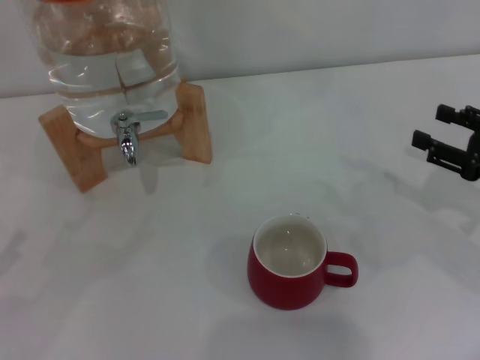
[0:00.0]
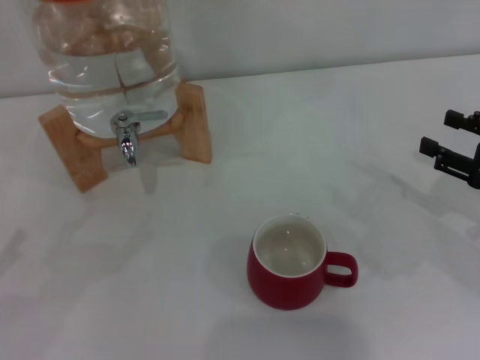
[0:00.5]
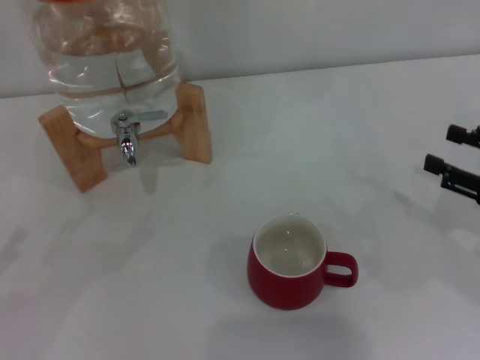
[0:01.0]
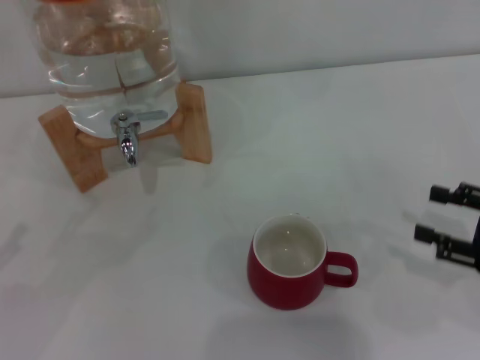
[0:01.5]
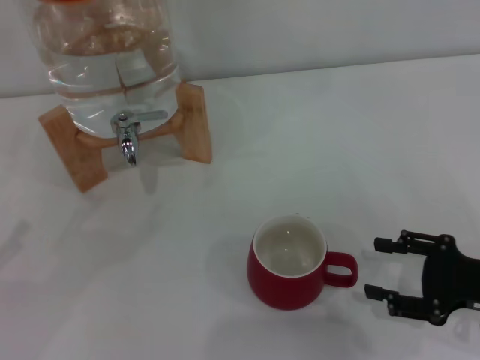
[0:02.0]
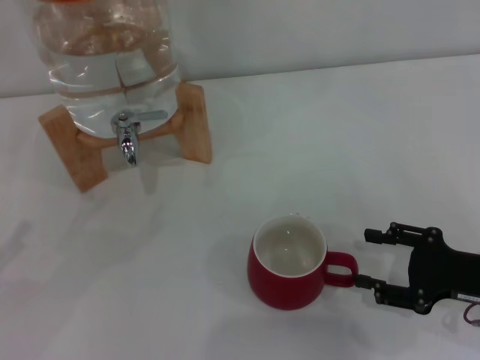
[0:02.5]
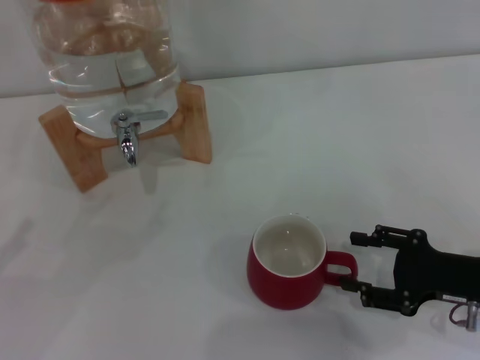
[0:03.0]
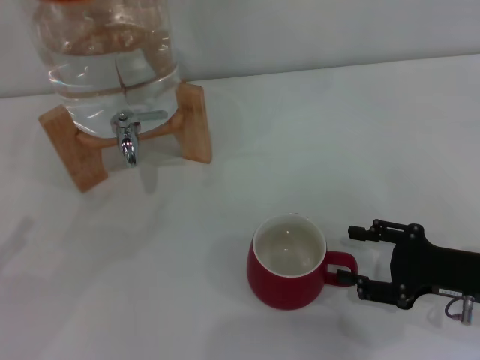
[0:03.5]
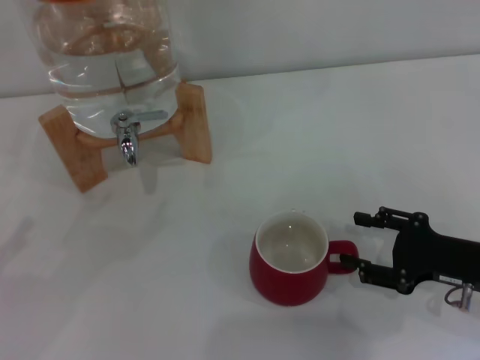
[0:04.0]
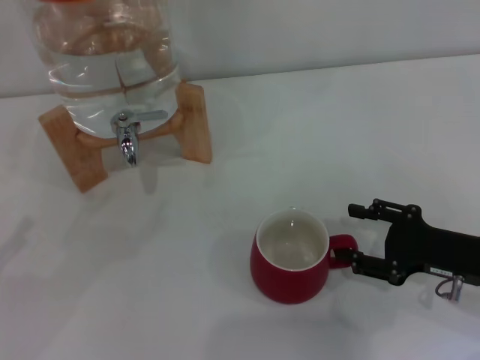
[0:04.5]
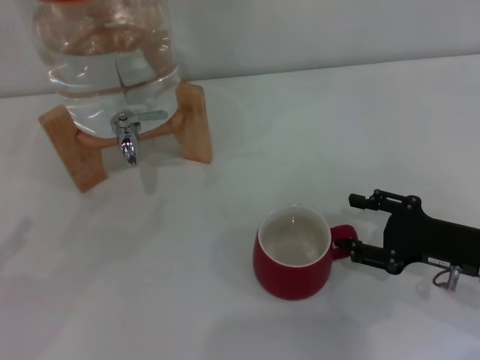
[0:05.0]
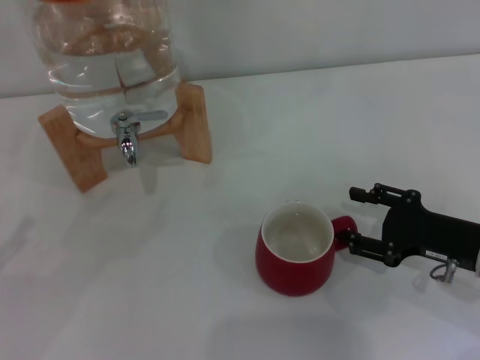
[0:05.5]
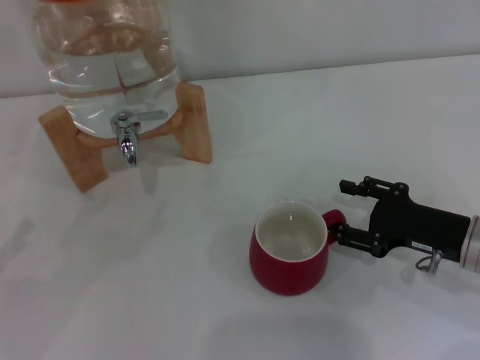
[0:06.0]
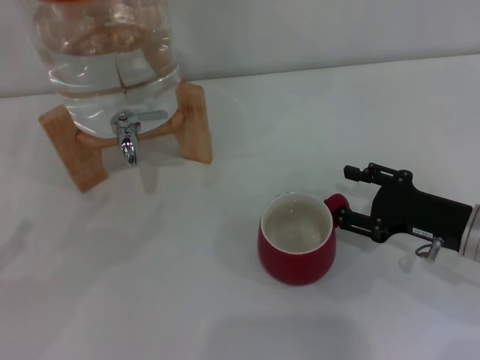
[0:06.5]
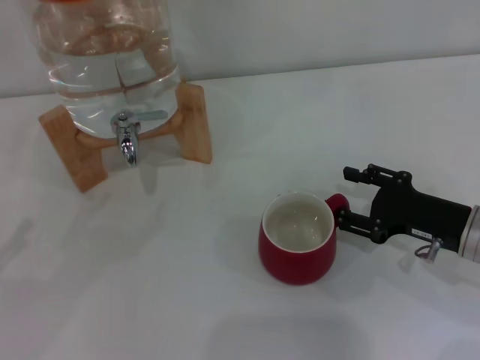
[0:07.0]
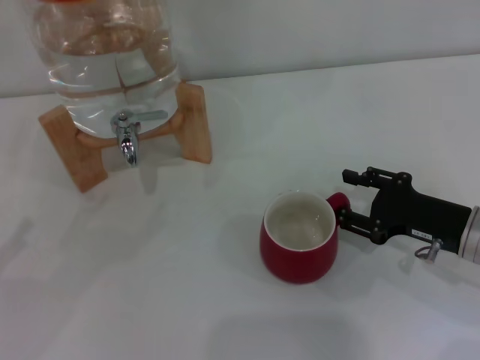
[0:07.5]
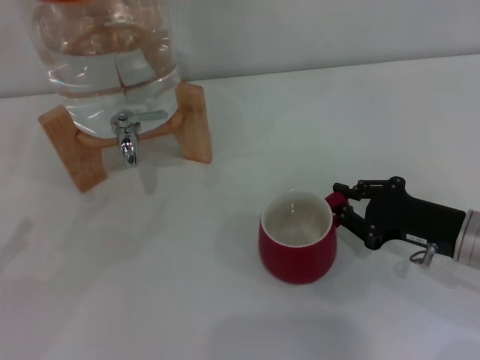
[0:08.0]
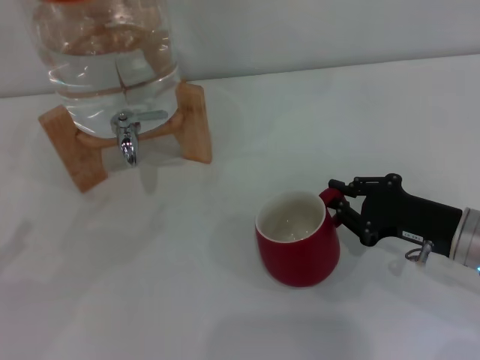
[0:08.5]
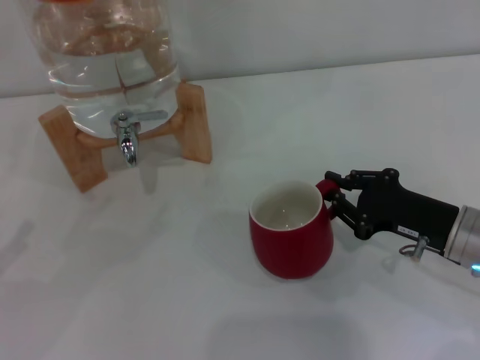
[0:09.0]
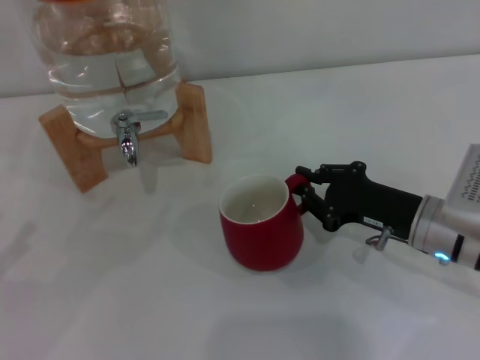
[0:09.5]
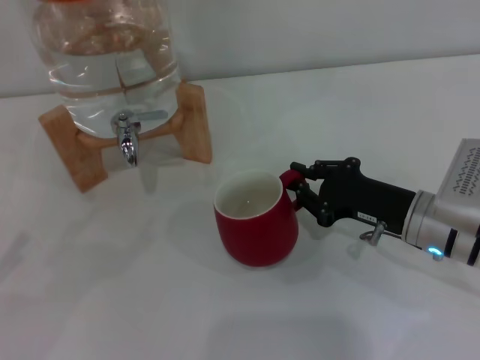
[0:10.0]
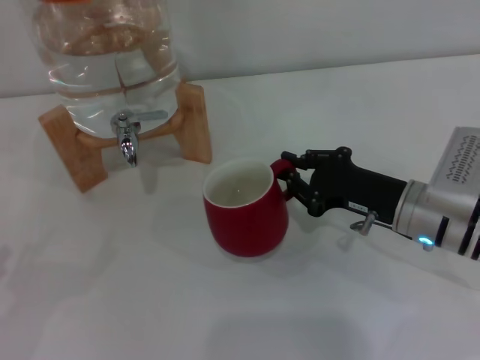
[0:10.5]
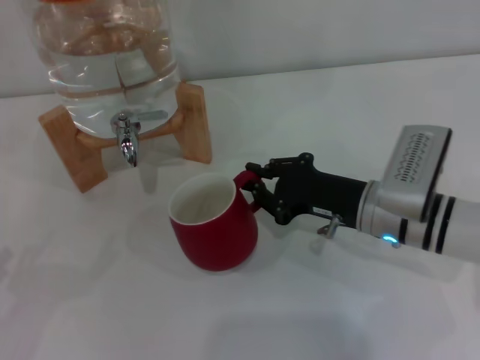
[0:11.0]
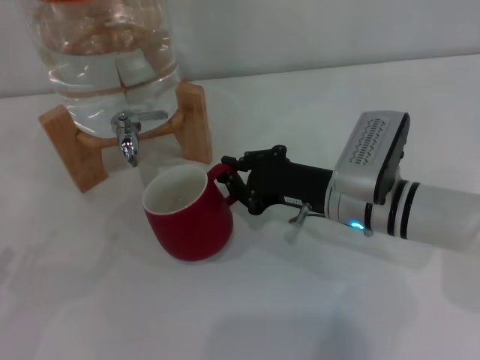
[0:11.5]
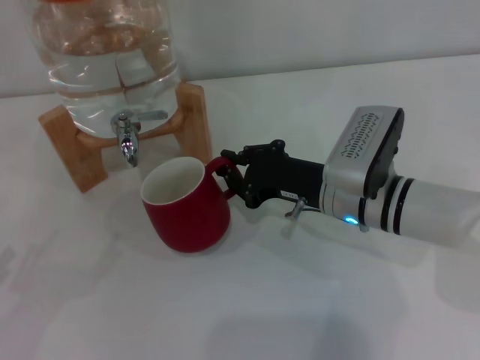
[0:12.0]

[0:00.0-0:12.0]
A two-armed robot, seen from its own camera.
Task of the whole recording: the right gripper pick up the red cup and place it horizontally under the faucet, the left gripper turn on the faucet to fill the cup, and then turn off the faucet.
0:00.0 to 0:02.0: The right gripper shifts roughly 5 cm backward.
0:02.0 to 0:04.0: The grippers move only a little.
0:04.0 to 0:06.0: The grippers move only a little.
0:06.0 to 0:08.0: The right gripper closes its fingers.
0:08.0 to 0:10.0: The right gripper ends up approximately 5 cm from where it was.
0:10.0 to 0:12.0: The right gripper is displaced to the left by approximately 10 cm.

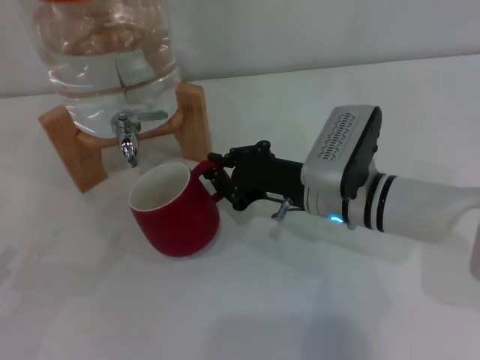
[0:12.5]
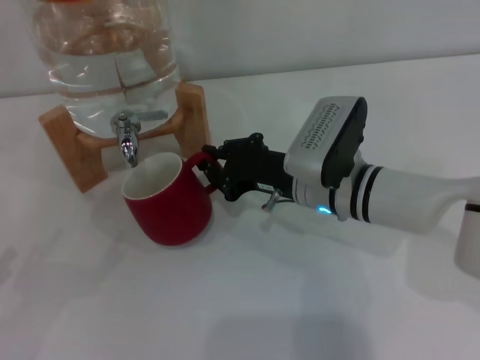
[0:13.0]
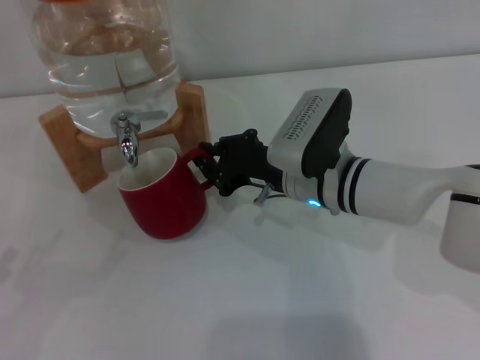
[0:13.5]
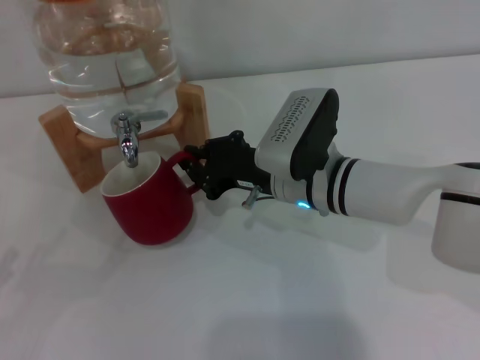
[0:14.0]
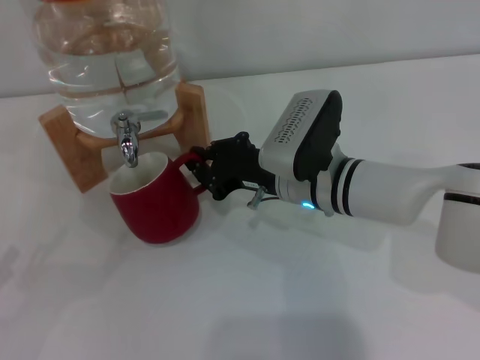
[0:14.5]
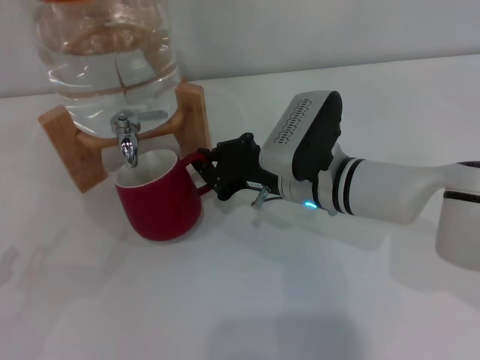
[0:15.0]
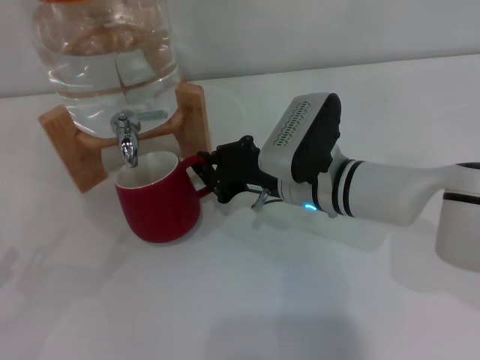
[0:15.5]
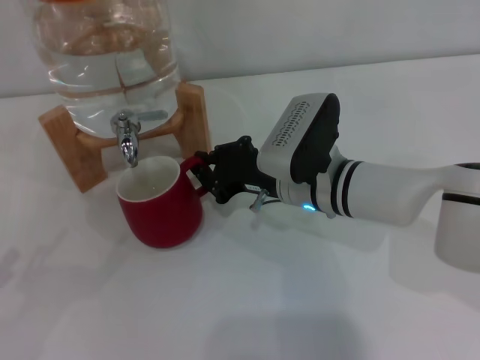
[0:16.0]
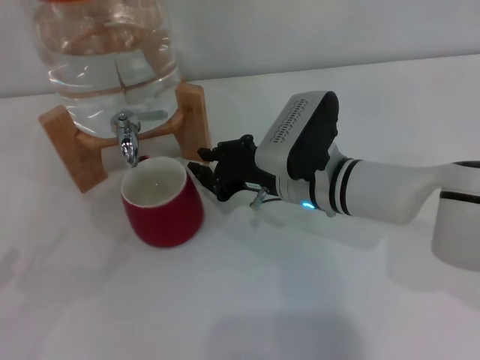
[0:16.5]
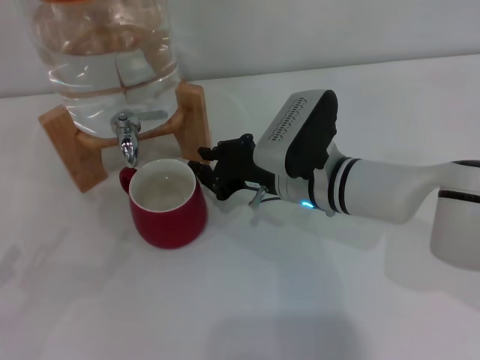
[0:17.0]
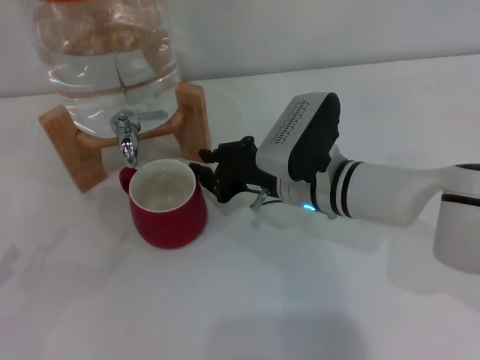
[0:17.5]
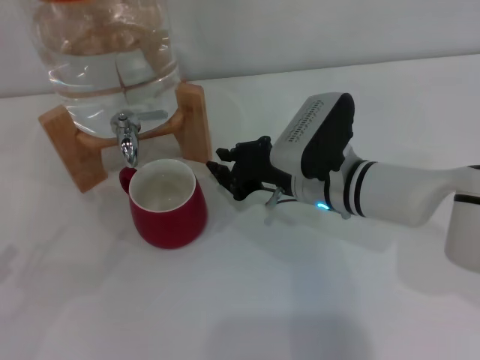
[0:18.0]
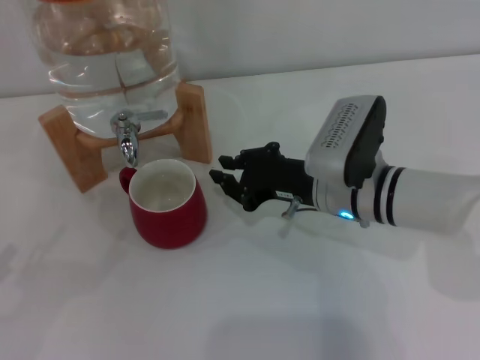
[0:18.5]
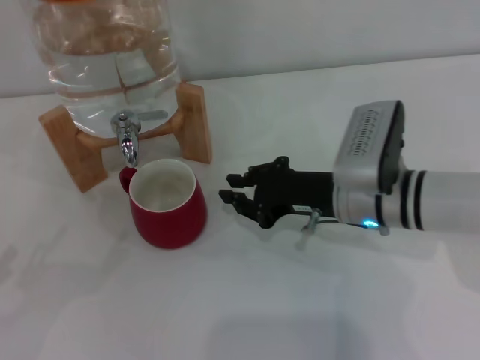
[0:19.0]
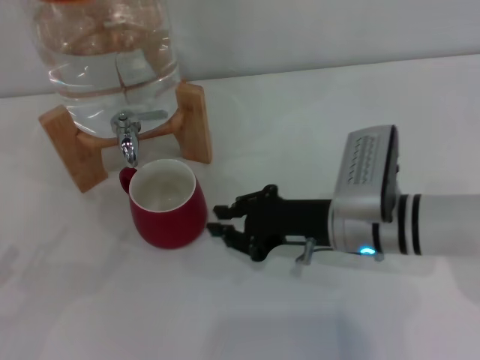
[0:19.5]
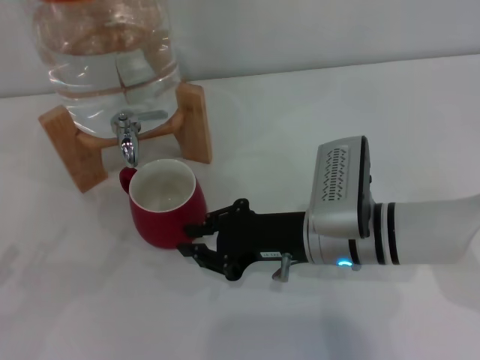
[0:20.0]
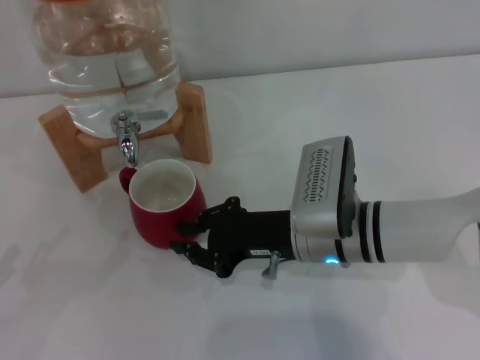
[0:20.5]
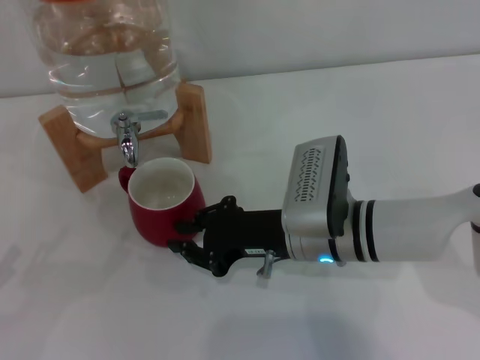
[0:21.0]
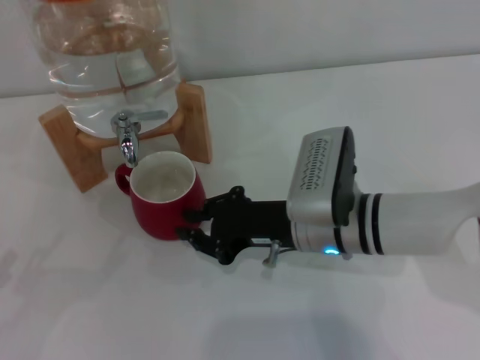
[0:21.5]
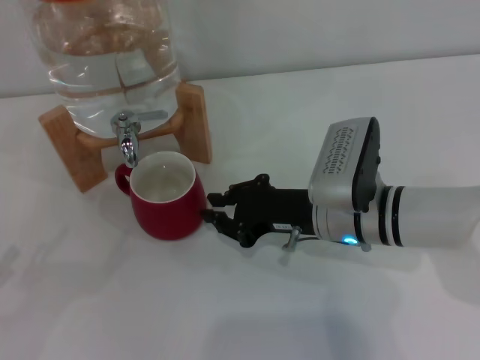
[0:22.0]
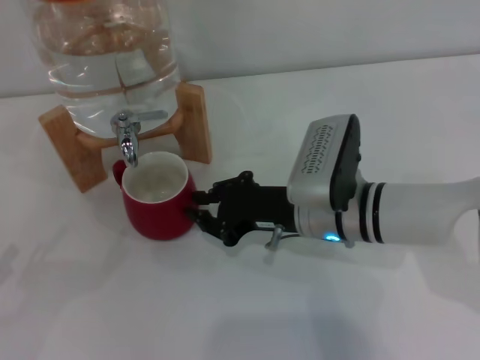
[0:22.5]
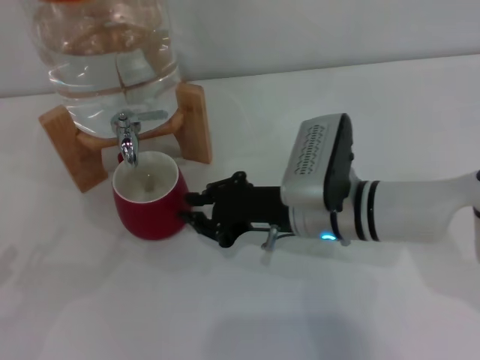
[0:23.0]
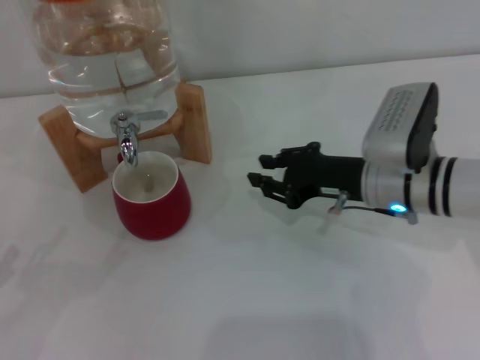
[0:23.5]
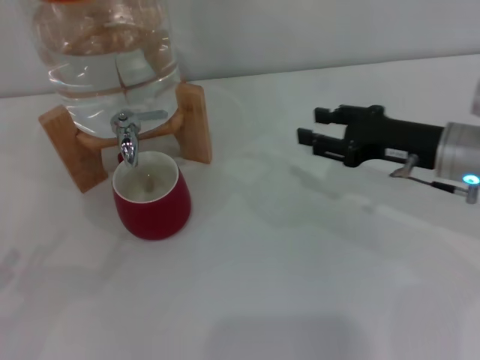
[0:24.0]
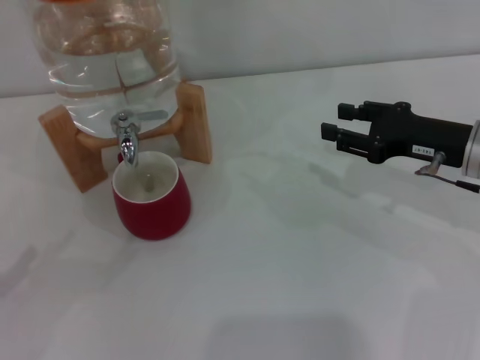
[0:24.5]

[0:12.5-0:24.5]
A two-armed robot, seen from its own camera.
Task of the whole recording: the right gripper pick up the red cup and place it horizontally under the faucet, the left gripper turn on the faucet to fill the cup, and then turn off the faucet.
Step, 0:12.5 to 0:23.0: Move the cup beneath the water dispenser nozzle with the right gripper.
0:12.5 to 0:14.5: There are only small adjustments of the grippers.
0:14.5 to 0:16.5: The two grippers keep their place.
0:16.5 to 0:18.5: There are only small adjustments of the grippers.
0:18.5 to 0:22.5: The grippers move only a little.
0:22.5 to 0:24.5: The right gripper heads to the right, covering approximately 15 cm.

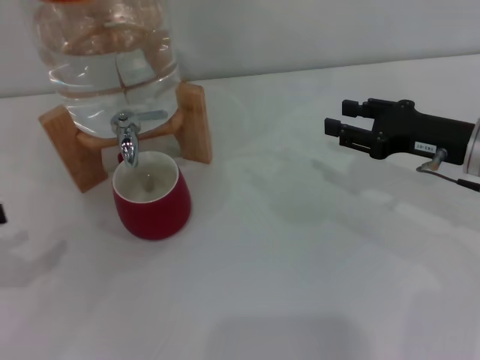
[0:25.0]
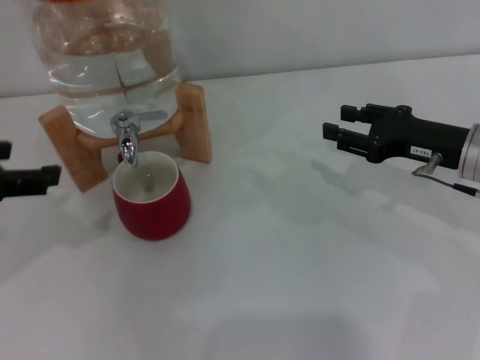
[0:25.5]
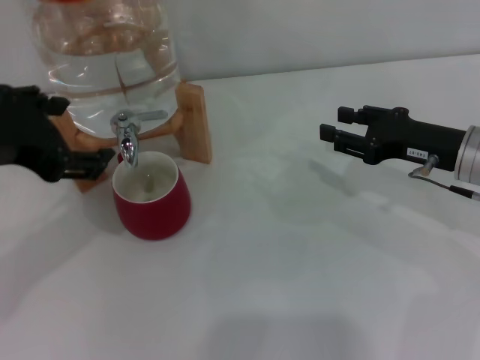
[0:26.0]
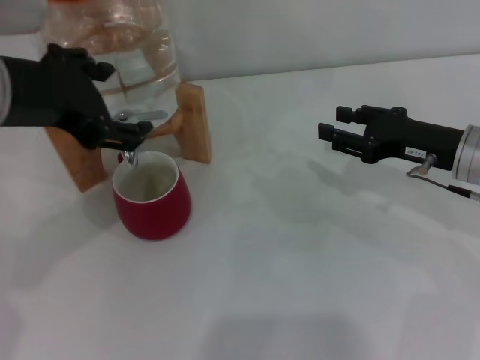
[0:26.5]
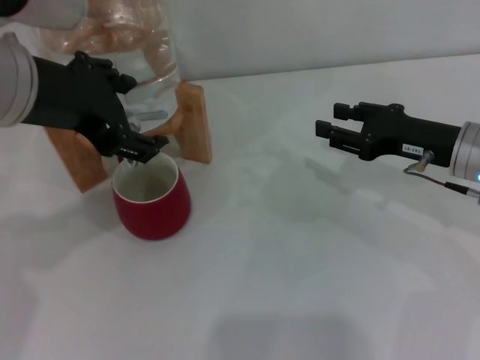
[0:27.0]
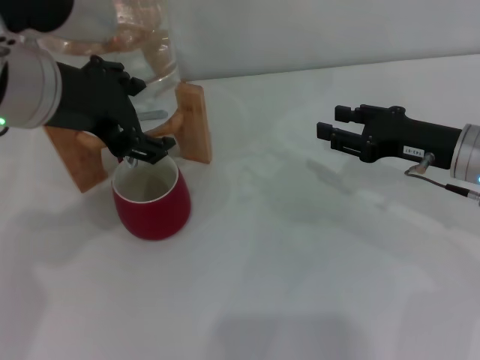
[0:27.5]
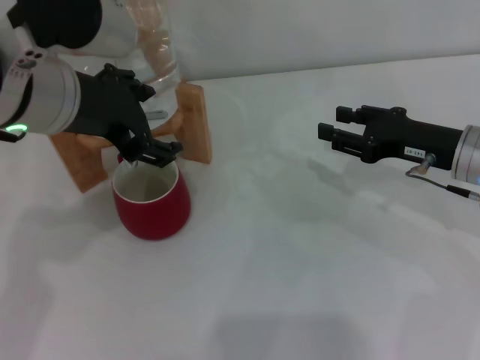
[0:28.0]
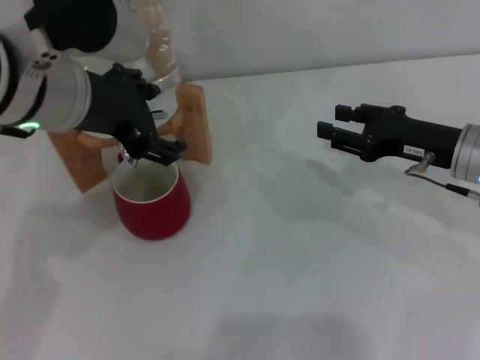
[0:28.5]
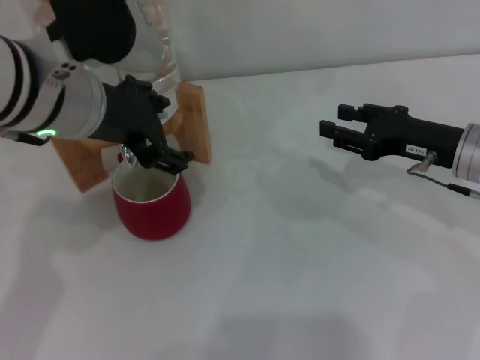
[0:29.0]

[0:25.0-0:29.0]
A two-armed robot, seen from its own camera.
Task of the whole recording: the right gripper pick up the red cup and place it horizontally under the faucet, the left gripper turn on the faucet to fill the cup, and then turn off the faucet.
0:25.0 to 0:27.0: The left gripper is displaced to the right and upward by approximately 25 cm.
0:27.0 to 0:29.0: The left gripper ends up roughly 5 cm from where it was.
